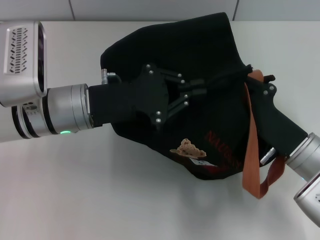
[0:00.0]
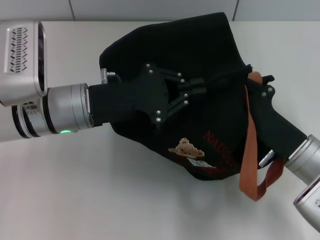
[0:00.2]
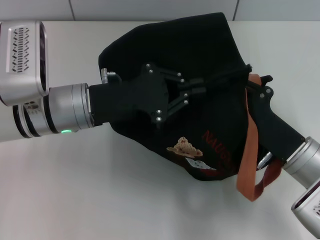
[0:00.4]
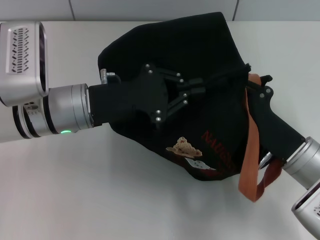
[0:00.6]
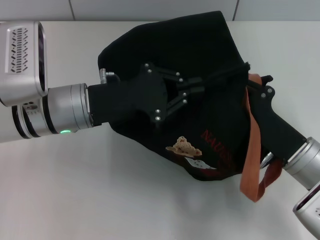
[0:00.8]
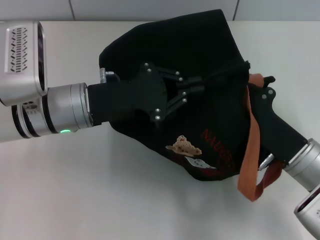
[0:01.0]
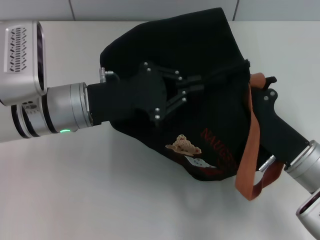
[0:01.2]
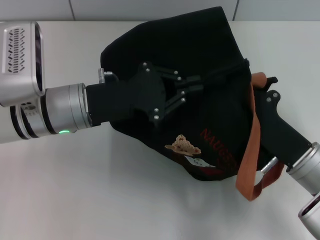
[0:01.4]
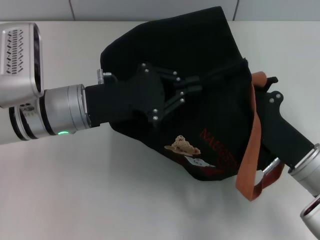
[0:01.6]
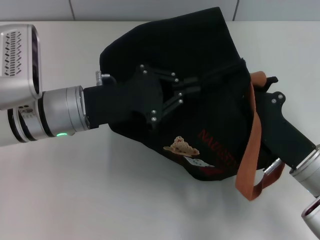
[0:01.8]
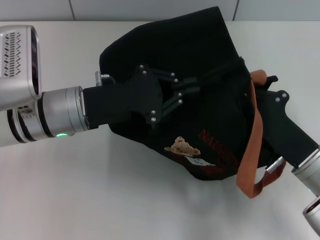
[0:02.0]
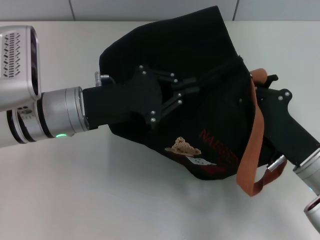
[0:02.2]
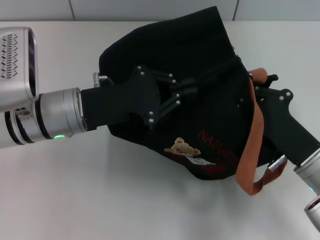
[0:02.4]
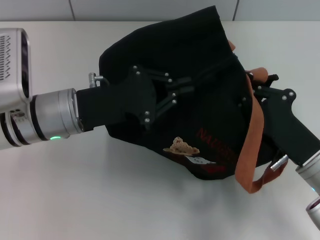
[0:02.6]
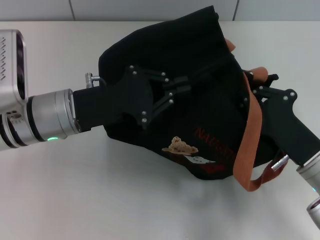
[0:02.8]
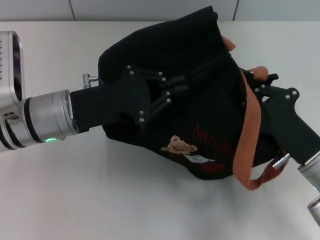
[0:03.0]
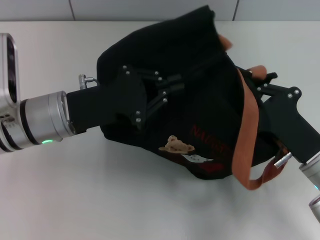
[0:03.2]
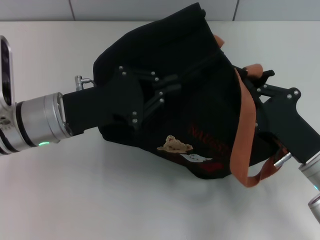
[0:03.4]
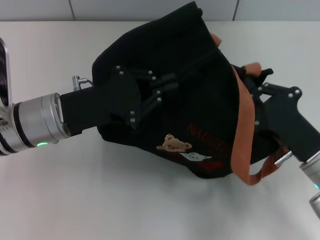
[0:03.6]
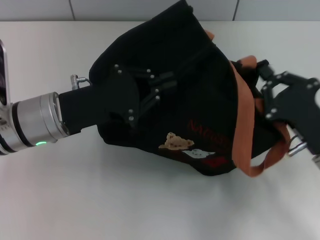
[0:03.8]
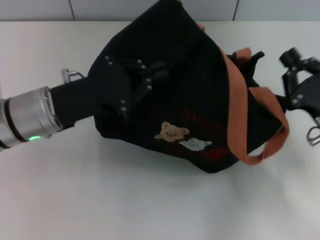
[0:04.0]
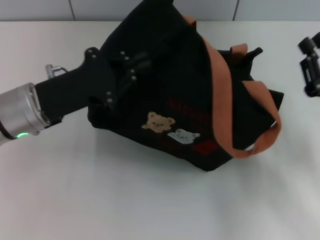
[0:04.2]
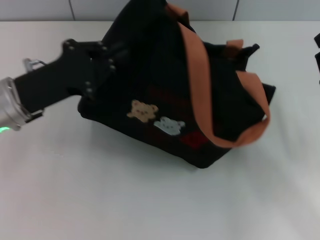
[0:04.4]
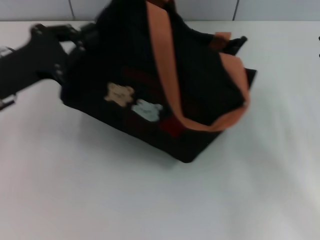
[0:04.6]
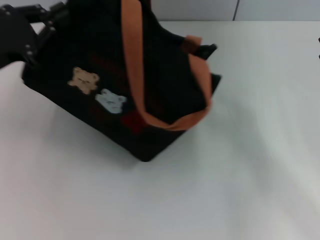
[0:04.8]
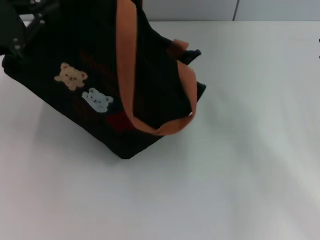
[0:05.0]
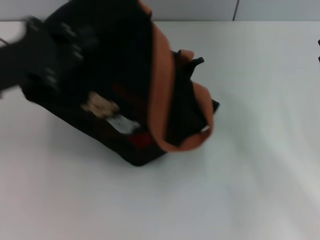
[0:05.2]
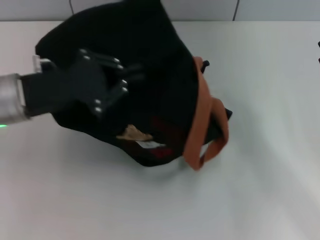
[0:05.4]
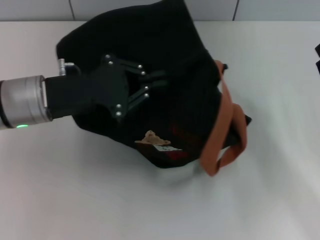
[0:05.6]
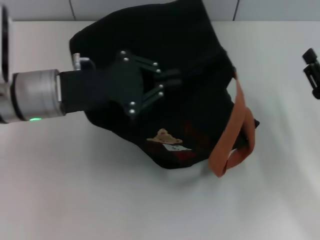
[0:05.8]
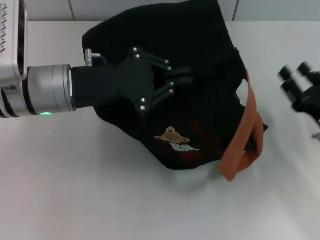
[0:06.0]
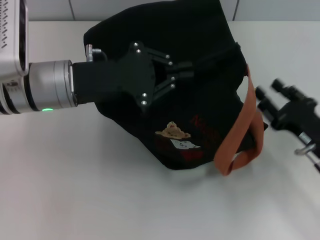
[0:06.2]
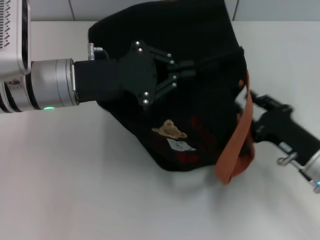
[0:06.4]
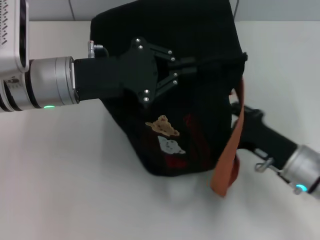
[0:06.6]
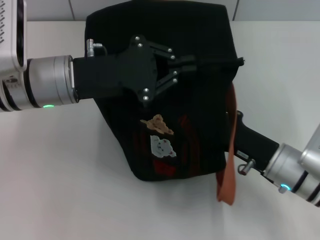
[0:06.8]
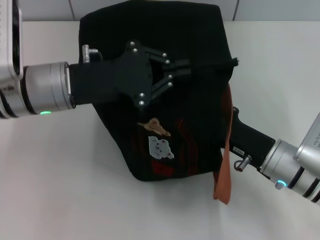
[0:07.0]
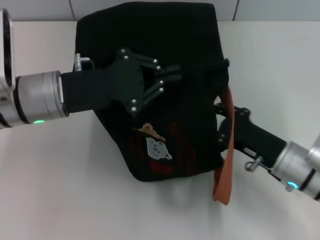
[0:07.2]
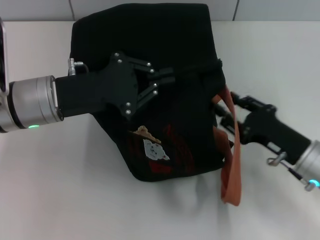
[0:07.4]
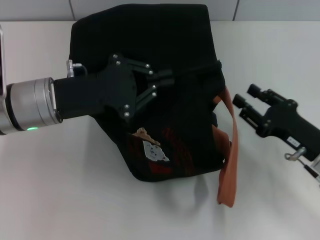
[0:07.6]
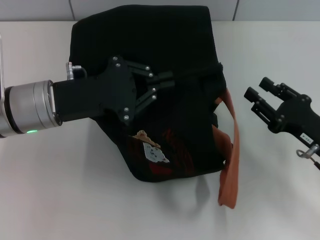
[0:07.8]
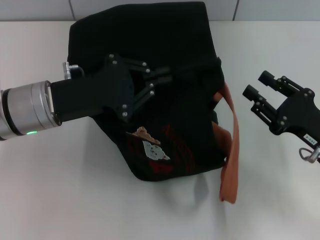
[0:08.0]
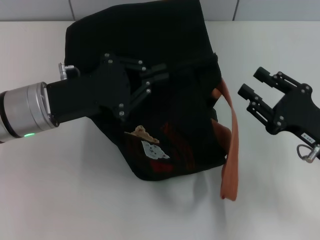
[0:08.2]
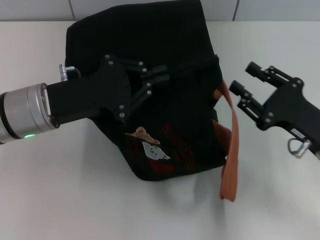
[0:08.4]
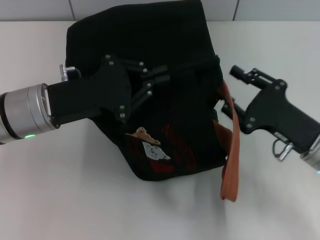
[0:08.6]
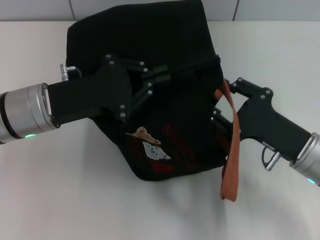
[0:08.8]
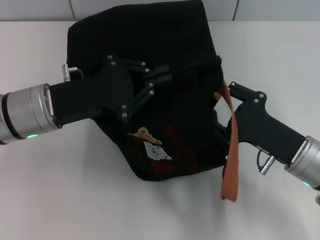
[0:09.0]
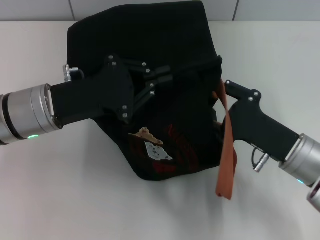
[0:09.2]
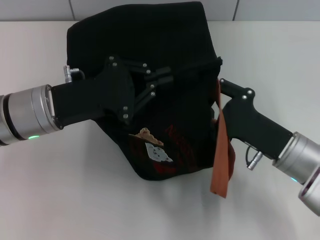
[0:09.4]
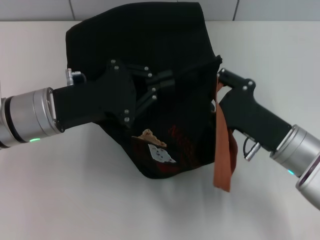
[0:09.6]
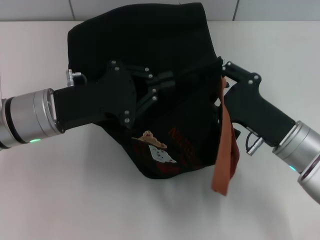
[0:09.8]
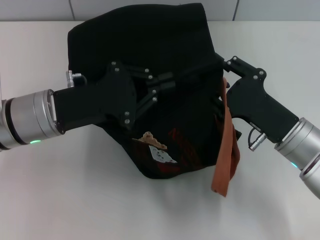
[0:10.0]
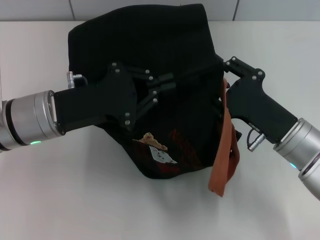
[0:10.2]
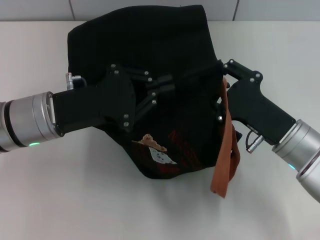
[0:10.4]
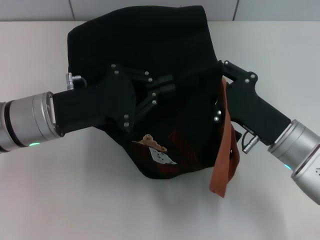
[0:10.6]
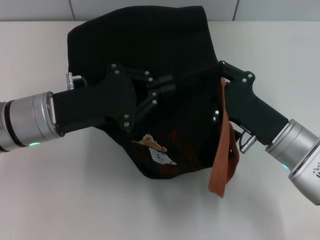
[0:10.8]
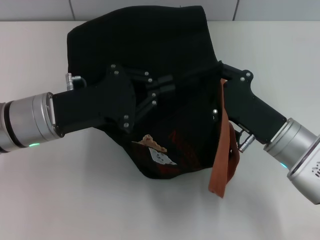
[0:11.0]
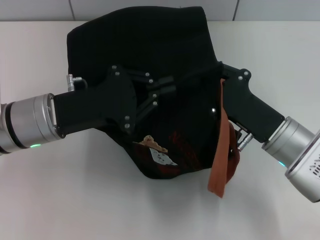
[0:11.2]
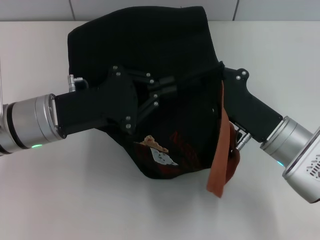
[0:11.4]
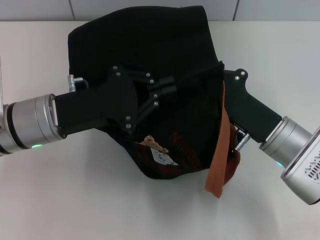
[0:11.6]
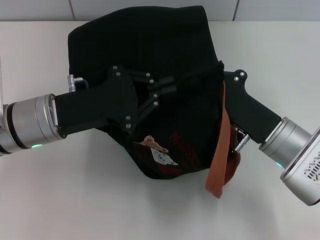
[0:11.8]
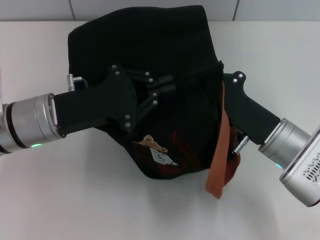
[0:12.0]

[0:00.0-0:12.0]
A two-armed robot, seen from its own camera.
0:00.0 to 0:01.6: The right gripper closes.
0:01.6 to 0:03.0: The grippers make only small movements.
0:03.0 to 0:04.4: The left gripper shifts about 5 cm to the left; the right gripper travels to the right by approximately 5 cm.
0:04.4 to 0:06.0: The left gripper is displaced to the right by some 5 cm.
0:06.0 to 0:07.6: The right gripper moves some 10 cm to the left and comes back.
0:09.0 to 0:10.4: The grippers make only small movements.
0:10.4 to 0:12.0: The right gripper closes up.

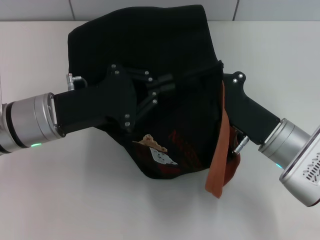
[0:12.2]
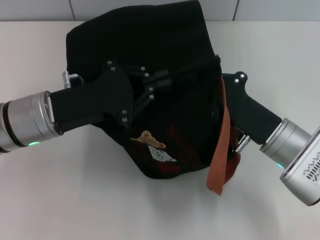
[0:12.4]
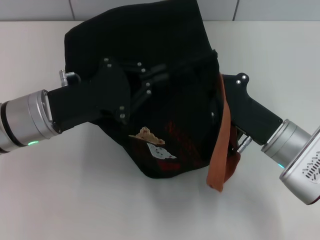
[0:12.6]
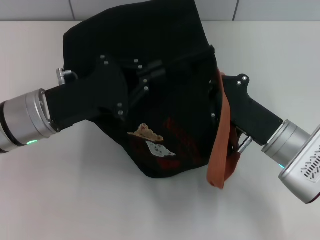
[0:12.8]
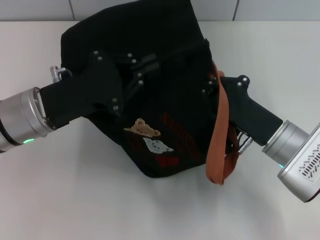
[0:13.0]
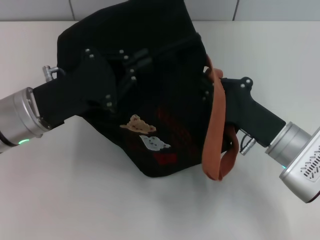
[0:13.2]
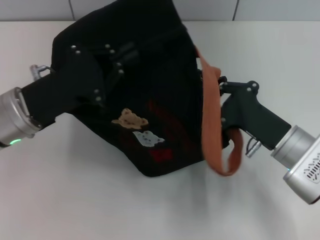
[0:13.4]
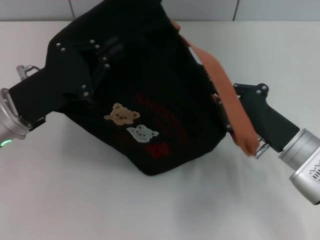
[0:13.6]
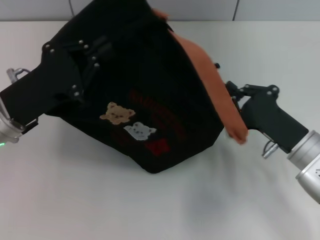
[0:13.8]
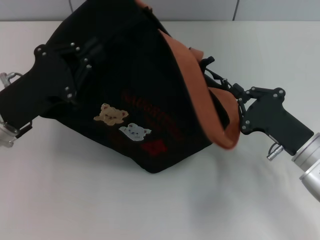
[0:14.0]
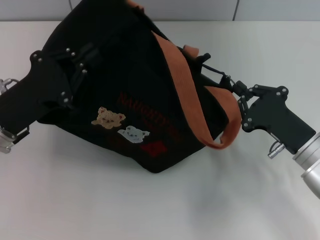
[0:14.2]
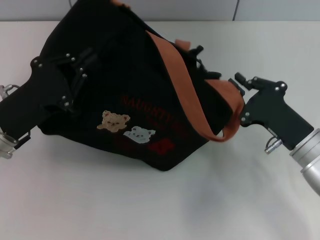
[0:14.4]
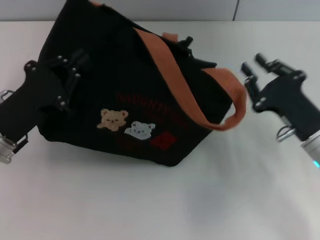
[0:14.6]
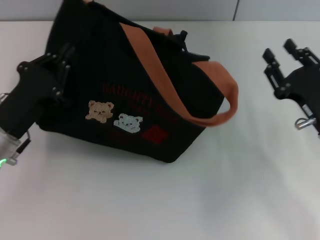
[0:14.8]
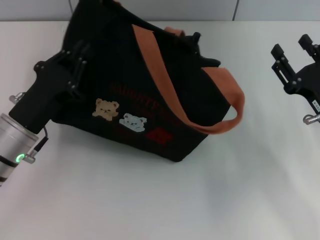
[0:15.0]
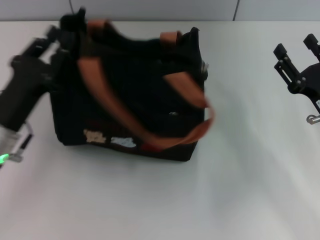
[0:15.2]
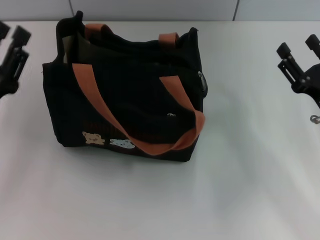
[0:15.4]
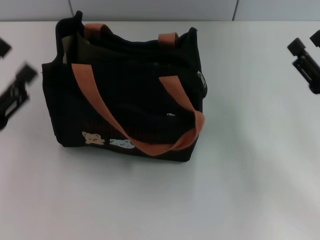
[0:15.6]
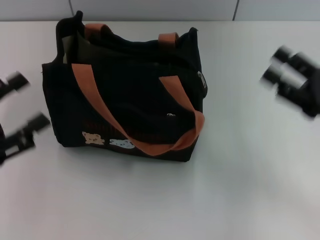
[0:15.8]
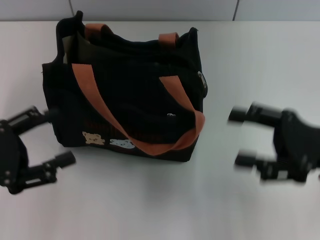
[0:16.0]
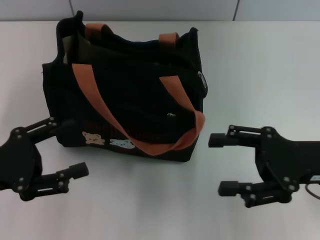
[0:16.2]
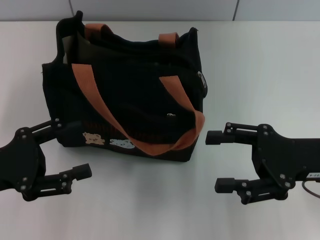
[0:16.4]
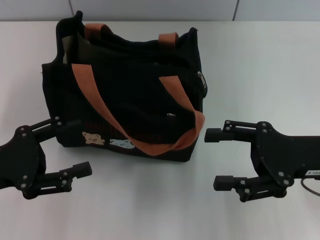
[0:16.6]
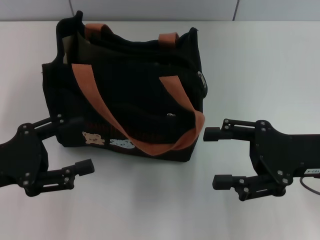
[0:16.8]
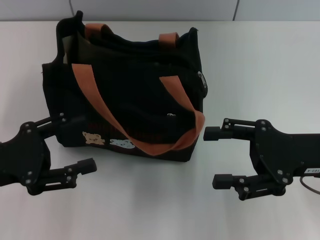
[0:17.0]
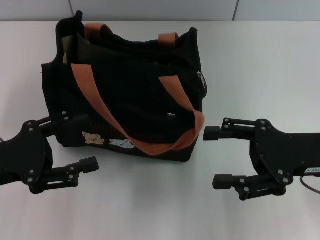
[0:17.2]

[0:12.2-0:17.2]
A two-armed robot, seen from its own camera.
Step, 0:12.2 to 0:14.6: Pull open the zipper with your right hand.
Step, 0:14.8 to 0:15.4: Grab the bag with your left hand.
0:12.2 to 0:13.8: The left gripper shifts by about 5 cm. Meanwhile the right gripper ends up about 5 cm from where it was.
0:13.8 to 0:15.6: The left gripper shifts about 10 cm backward and to the left, and opens its fingers, while the right gripper moves to the right, roughly 5 cm, and opens its fingers.
0:15.6 to 0:17.2: The right gripper heads to the left, covering approximately 5 cm.
